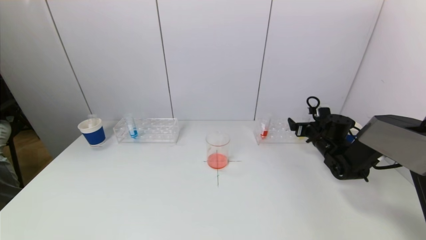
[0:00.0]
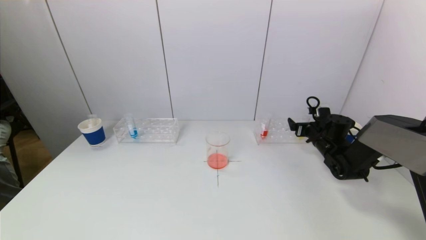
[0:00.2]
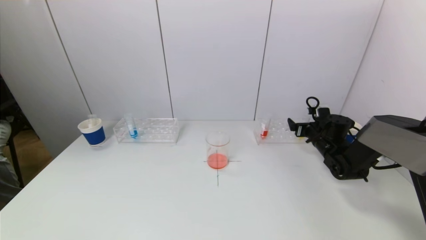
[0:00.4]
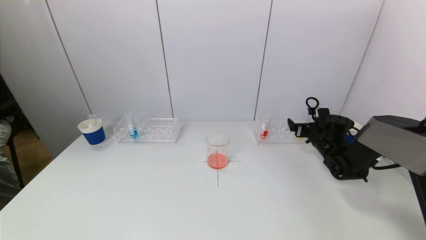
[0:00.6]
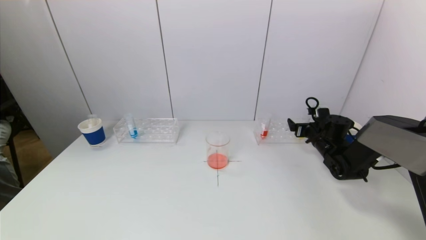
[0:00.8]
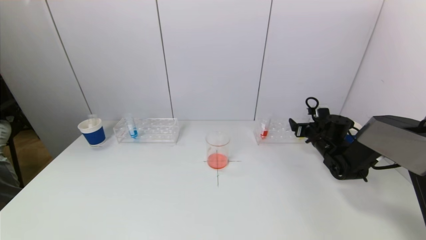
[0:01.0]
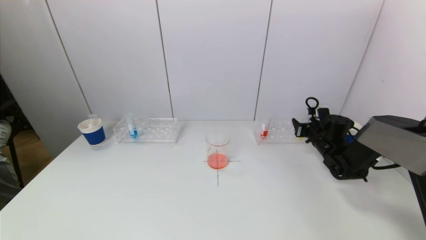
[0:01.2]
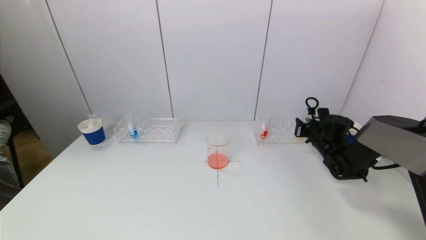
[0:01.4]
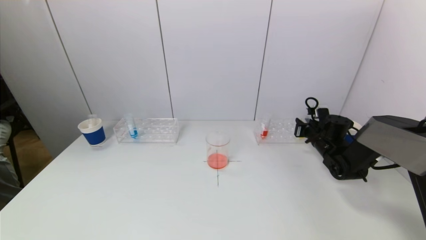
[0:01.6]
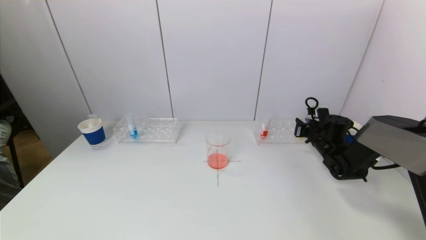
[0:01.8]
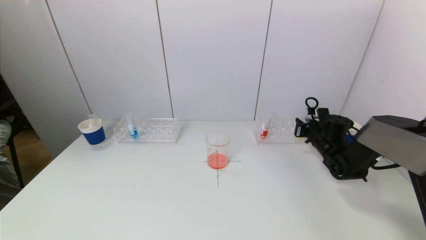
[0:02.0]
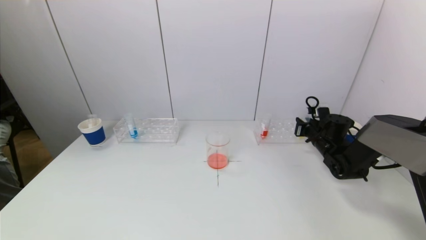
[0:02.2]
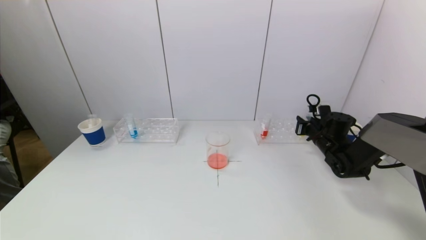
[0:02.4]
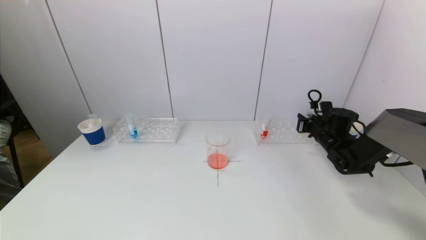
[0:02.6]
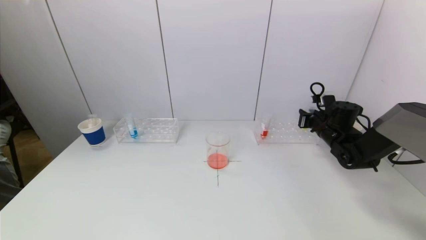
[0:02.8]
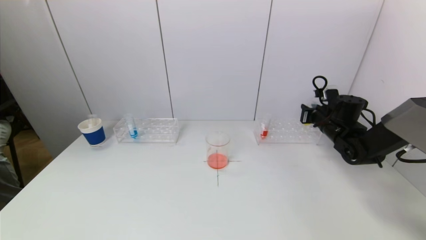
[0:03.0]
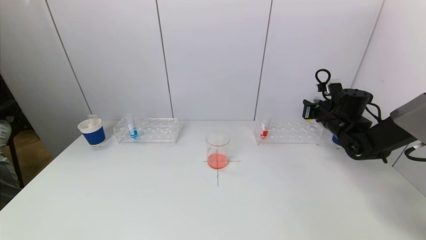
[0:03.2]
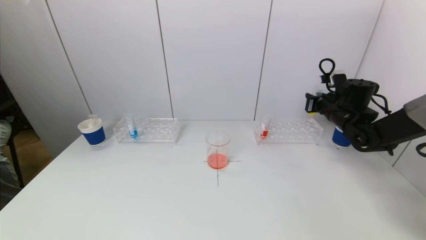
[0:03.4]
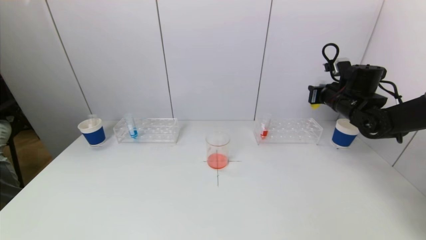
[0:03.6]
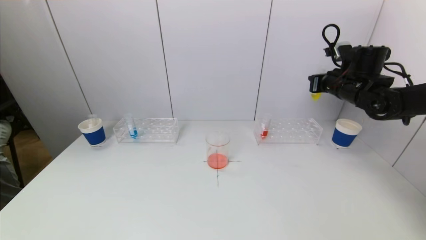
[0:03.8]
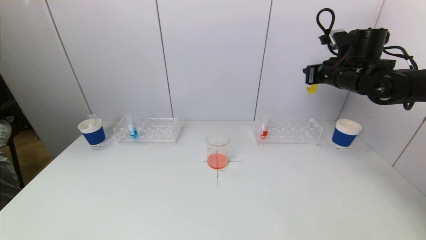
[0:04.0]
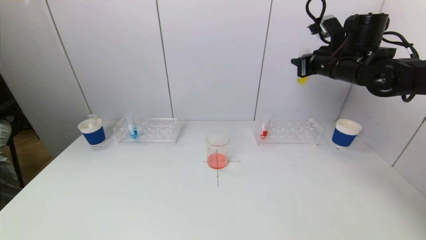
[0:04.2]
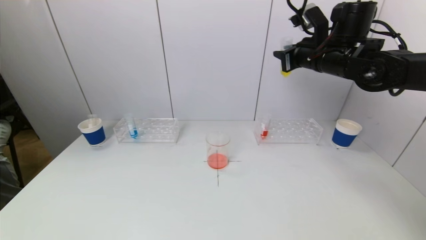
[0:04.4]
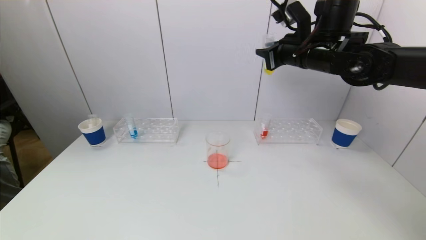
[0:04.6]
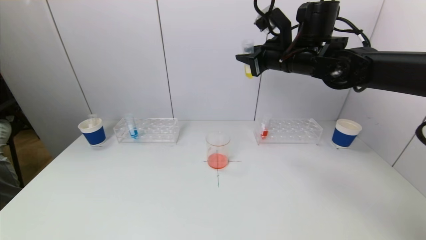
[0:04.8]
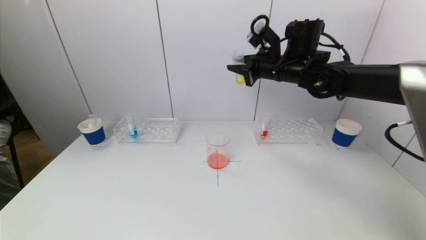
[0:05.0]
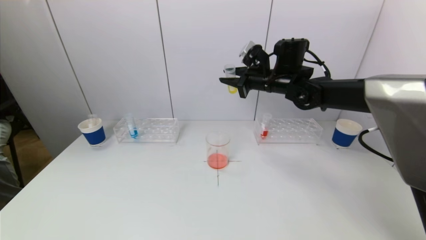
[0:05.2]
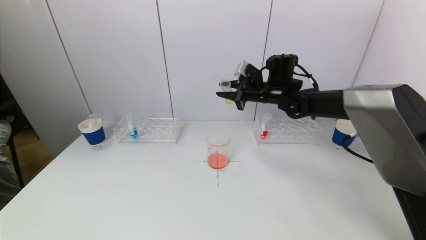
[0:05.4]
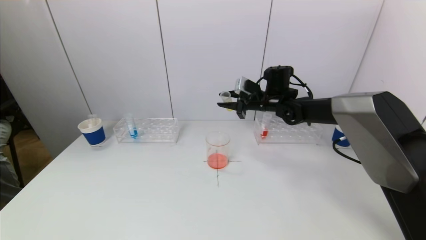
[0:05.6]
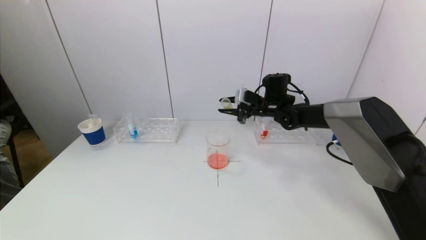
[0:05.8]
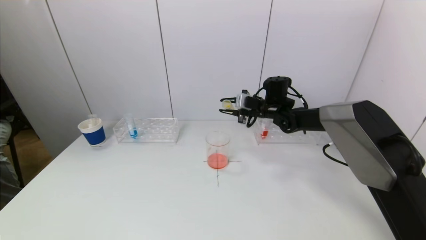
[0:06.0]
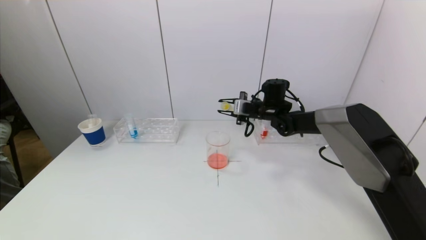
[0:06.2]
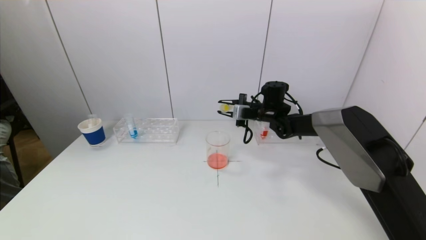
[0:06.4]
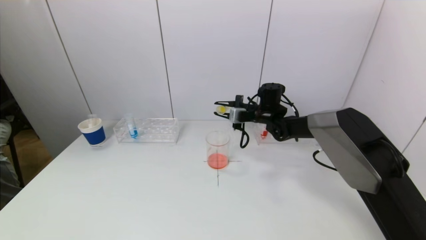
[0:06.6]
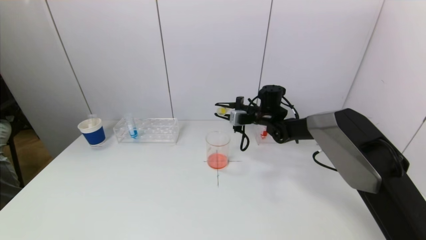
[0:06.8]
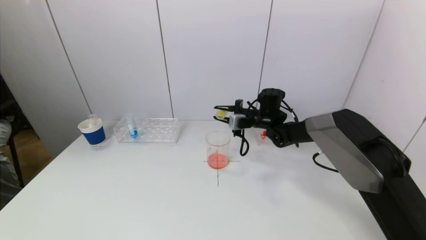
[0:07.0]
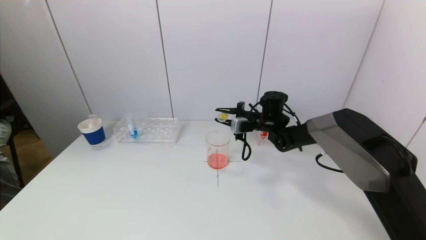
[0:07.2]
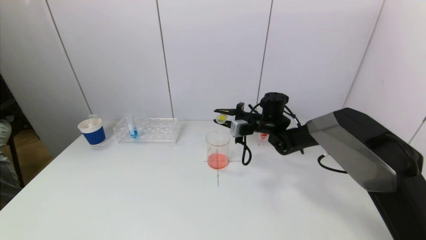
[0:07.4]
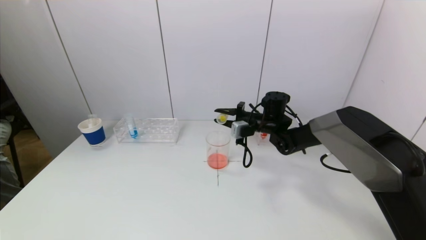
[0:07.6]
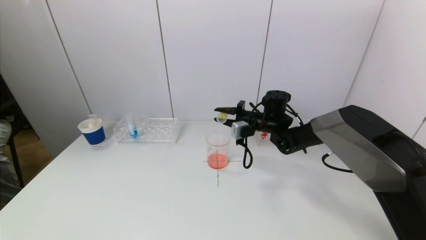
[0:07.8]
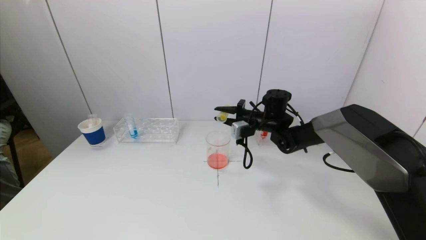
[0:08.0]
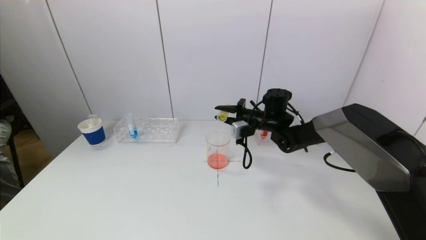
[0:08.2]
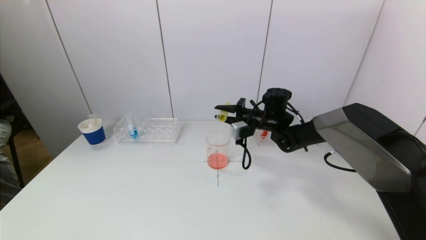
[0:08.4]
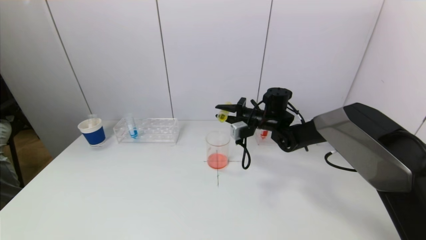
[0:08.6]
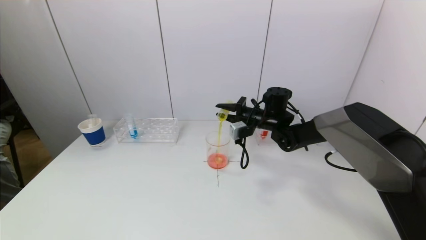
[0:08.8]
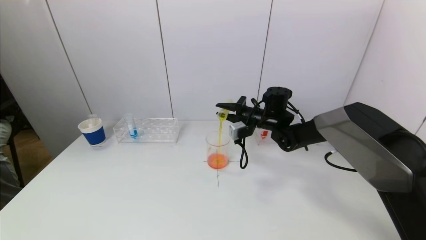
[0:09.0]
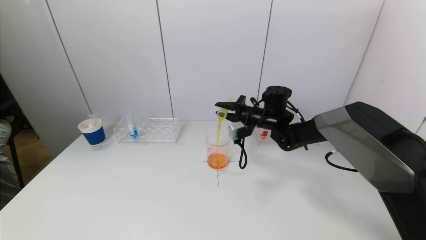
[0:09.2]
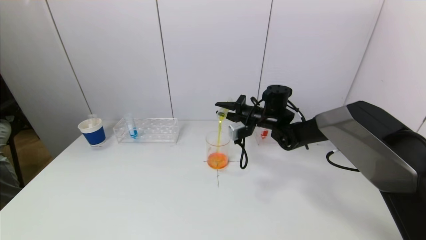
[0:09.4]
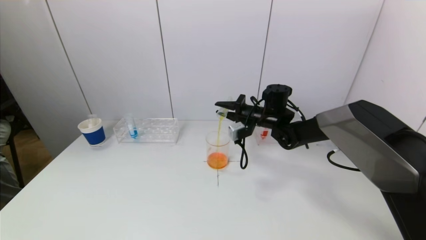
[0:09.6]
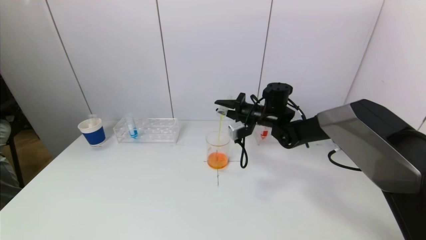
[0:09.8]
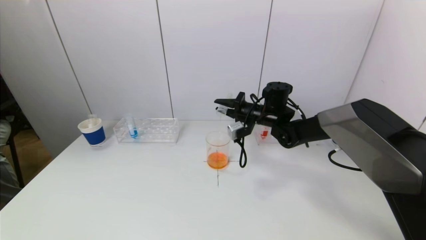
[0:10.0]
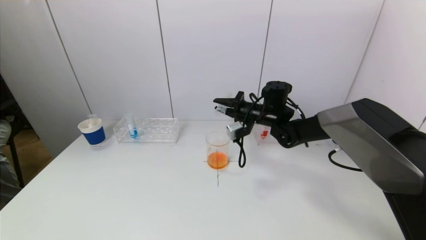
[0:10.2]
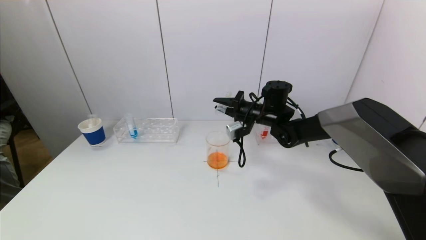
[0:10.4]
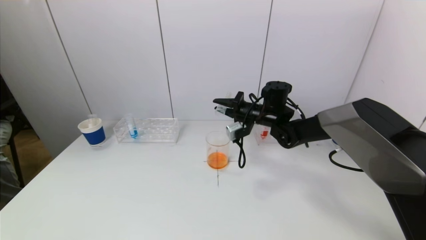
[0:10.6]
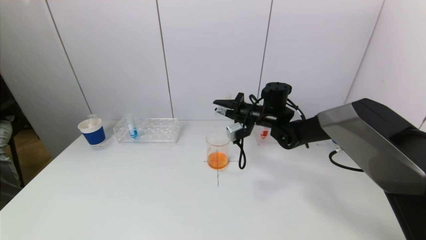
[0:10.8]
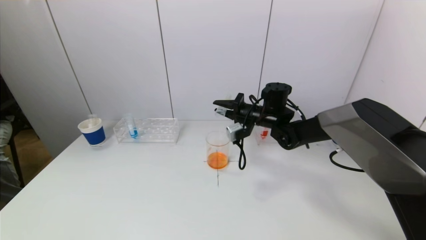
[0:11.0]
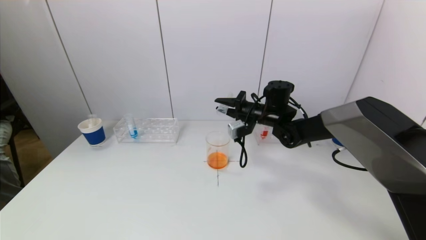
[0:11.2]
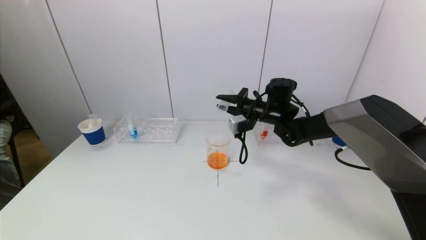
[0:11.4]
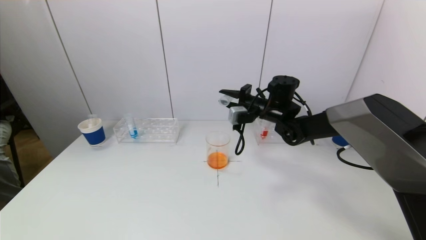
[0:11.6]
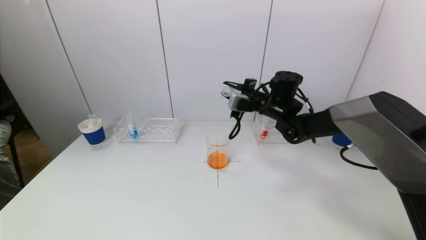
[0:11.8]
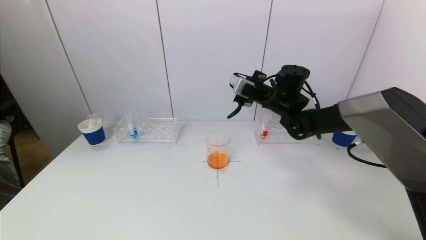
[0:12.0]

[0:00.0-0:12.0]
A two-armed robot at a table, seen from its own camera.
Task of the whole recording: pick up a test tube with pigment on left test tube rack and a test tube with pigment on right test tube rack by grippers and pour them into the beaker.
Step, 0:01.8 to 0:10.4: Pour the yellow reagent into the graduated cylinder with the right gripper.
0:00.0 to 0:01.6: The right gripper closes its fingers.
0:01.6 to 0:03.0: The right gripper heads upward, covering about 5 cm.
0:03.0 to 0:04.4: The right gripper is displaced upward and to the left by some 20 cm.
0:04.4 to 0:06.0: The right gripper moves downward and forward, approximately 20 cm.
0:07.6 to 0:09.0: The grippers make only small movements.
0:09.0 to 0:10.4: The grippers make only small movements.
0:10.4 to 0:12.0: The right gripper ends up approximately 5 cm from where it was.

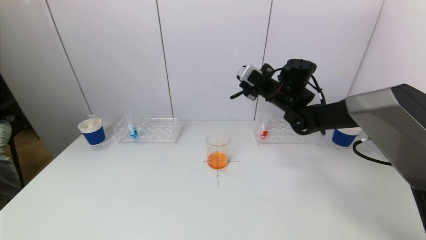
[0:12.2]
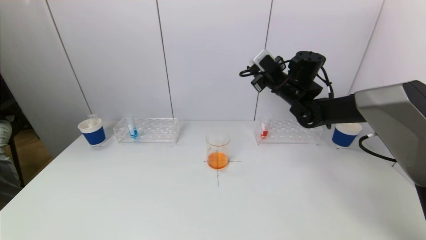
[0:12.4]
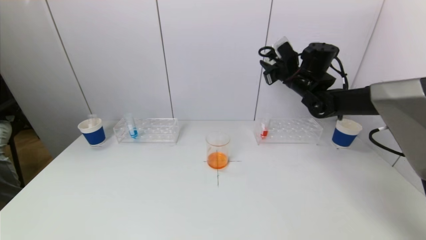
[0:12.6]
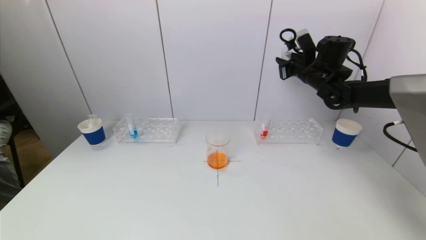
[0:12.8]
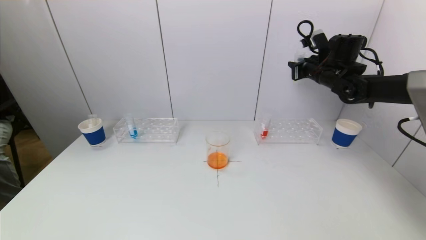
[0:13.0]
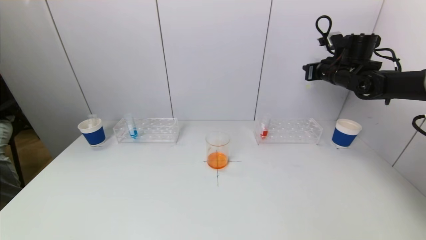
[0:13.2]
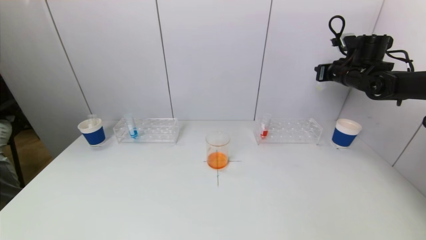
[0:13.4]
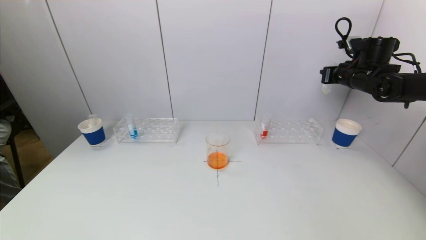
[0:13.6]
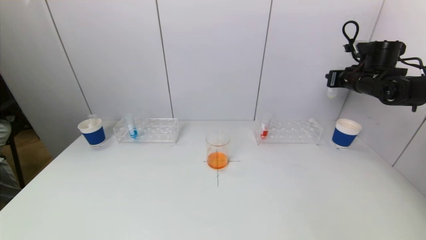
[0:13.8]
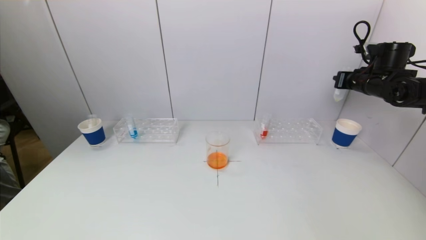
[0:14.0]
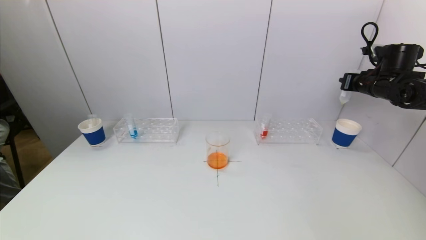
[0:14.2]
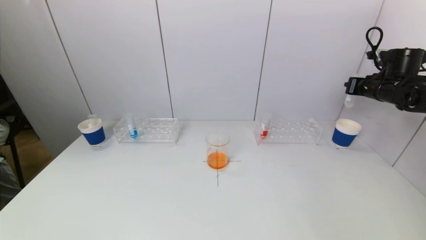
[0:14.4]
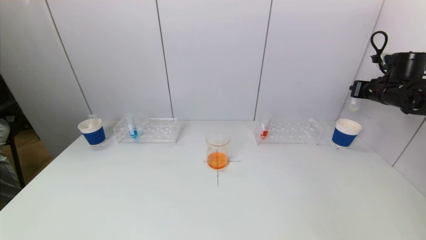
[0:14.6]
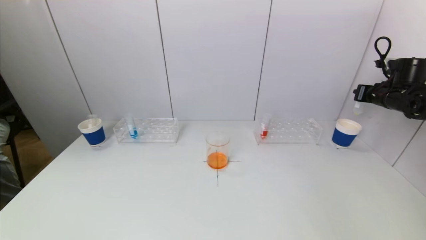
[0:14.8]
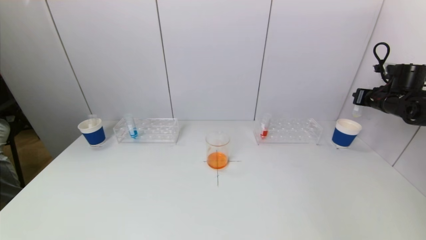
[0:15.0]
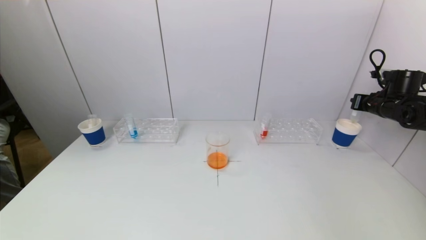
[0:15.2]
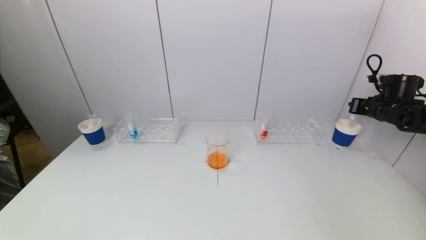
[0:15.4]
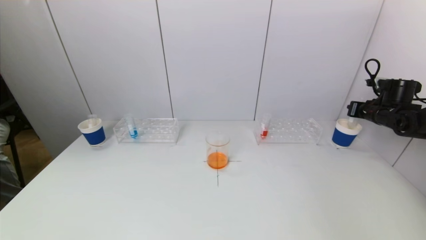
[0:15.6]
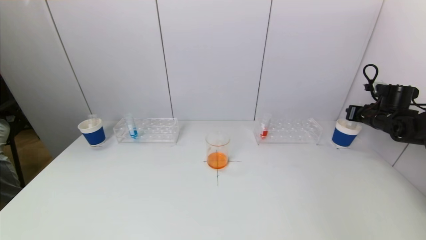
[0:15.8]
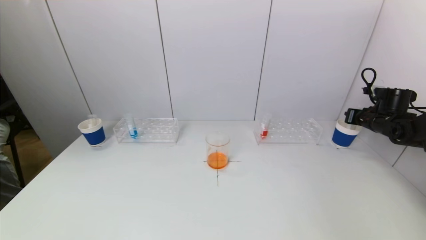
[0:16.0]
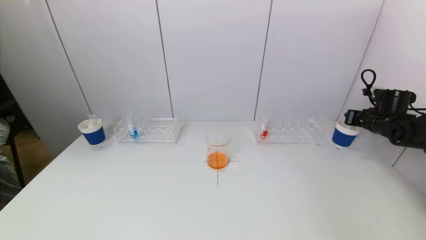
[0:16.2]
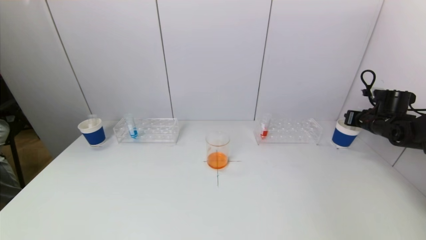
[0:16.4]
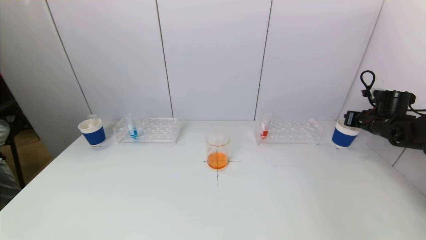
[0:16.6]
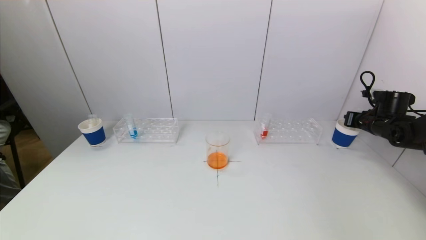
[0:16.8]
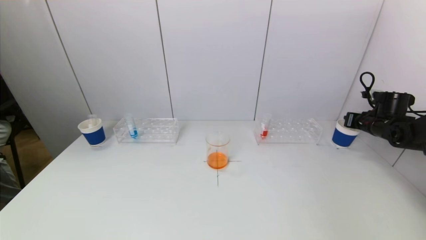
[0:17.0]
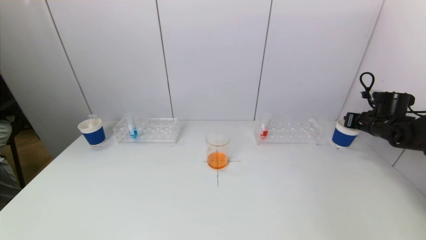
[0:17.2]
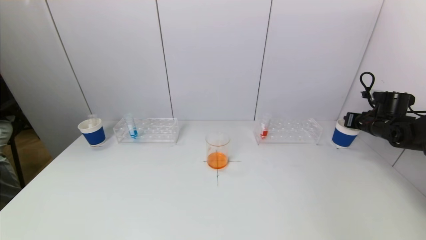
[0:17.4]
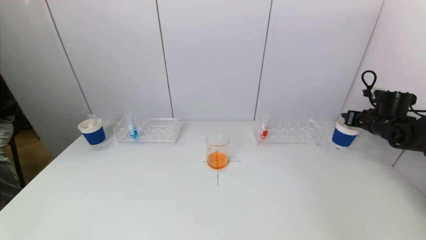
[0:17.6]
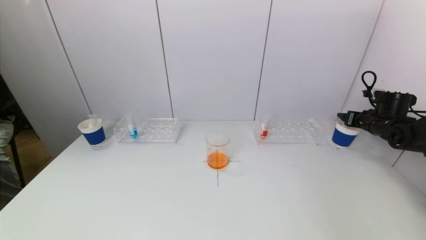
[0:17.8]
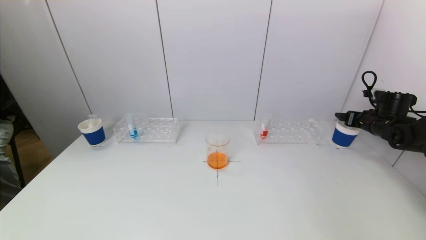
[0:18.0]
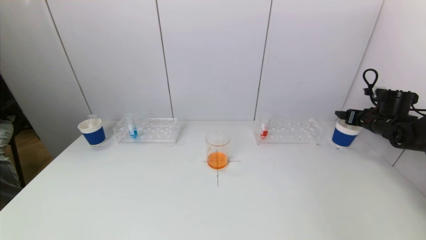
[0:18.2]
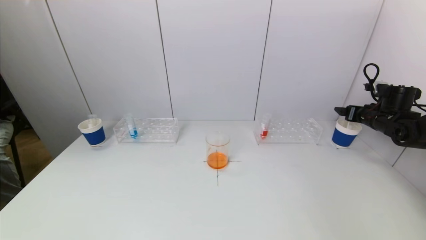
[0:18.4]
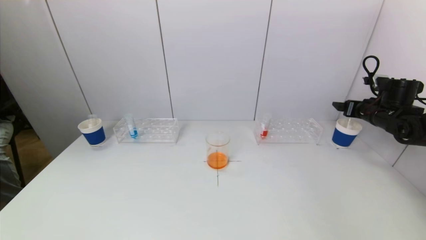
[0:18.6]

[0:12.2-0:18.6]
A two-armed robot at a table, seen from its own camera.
Task of the whole recording: pick up a test tube with pigment on left test tube rack and a test tube with pigment on right test tube rack by grippers and pour them into the beaker.
Step, 0:12.2 to 0:18.2: Place the test tube into the paper cup with the right gripper.
0:12.2 to 0:13.8: The right gripper shifts some 20 cm to the right.
0:13.8 to 0:15.4: The right gripper goes roughly 10 cm downward and to the right.
0:15.4 to 0:17.0: The grippers move only a little.
0:17.0 to 0:18.6: The right gripper moves upward, roughly 5 cm, and opens.
